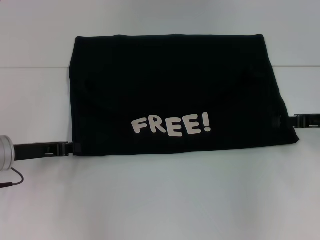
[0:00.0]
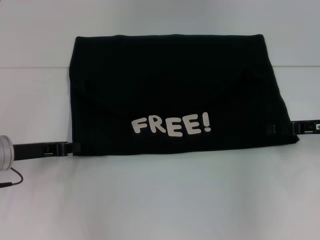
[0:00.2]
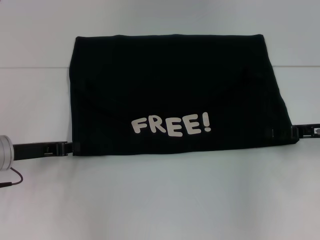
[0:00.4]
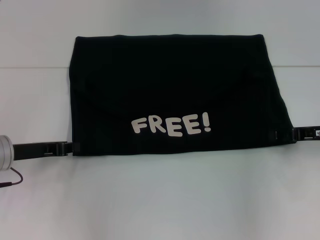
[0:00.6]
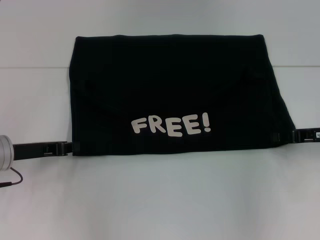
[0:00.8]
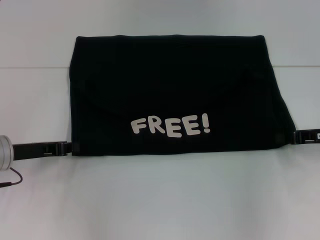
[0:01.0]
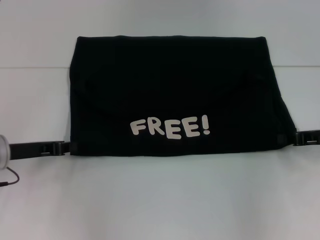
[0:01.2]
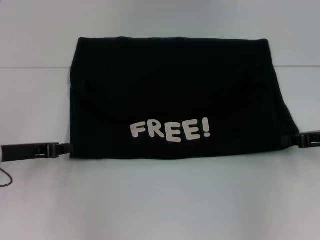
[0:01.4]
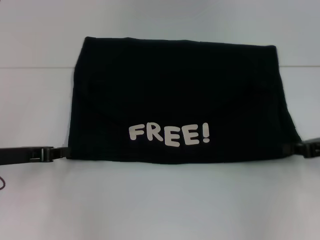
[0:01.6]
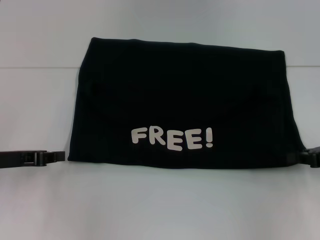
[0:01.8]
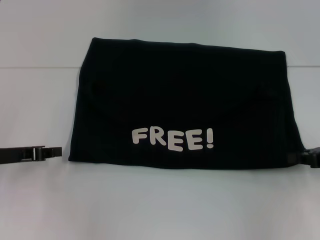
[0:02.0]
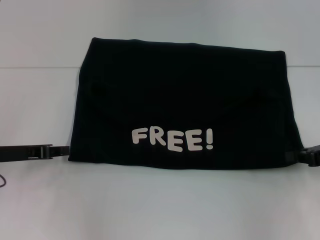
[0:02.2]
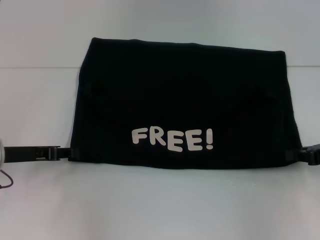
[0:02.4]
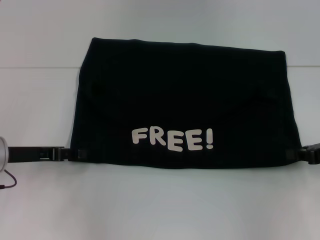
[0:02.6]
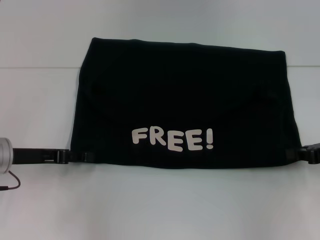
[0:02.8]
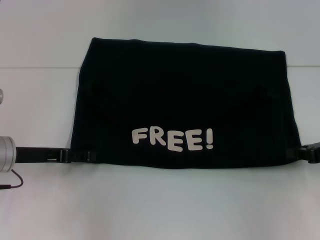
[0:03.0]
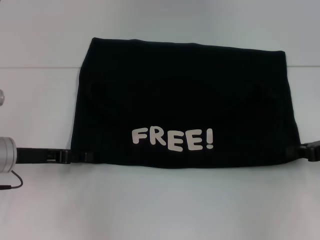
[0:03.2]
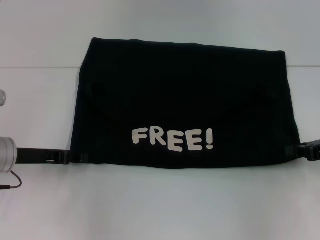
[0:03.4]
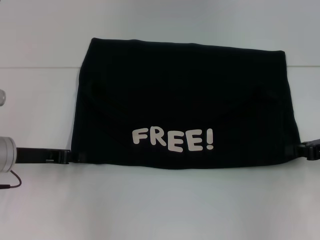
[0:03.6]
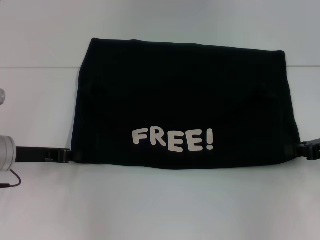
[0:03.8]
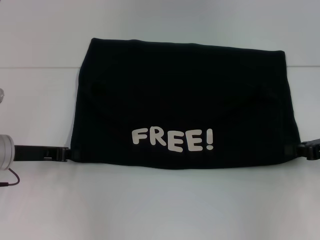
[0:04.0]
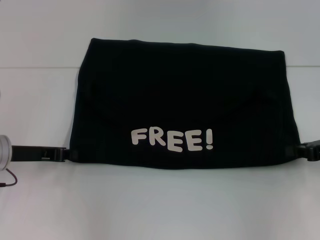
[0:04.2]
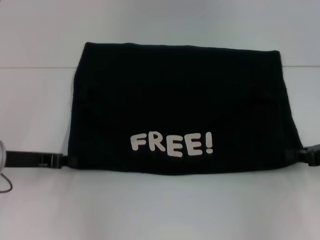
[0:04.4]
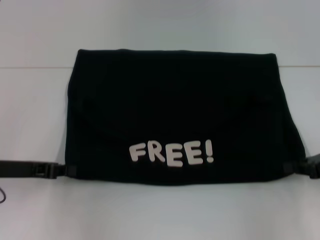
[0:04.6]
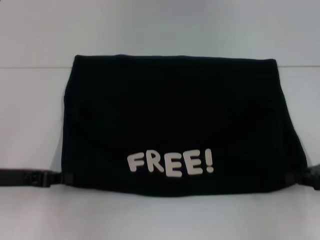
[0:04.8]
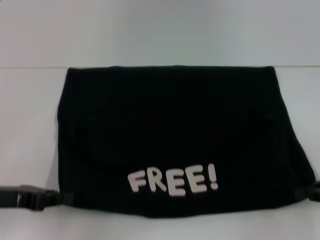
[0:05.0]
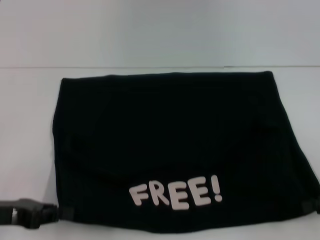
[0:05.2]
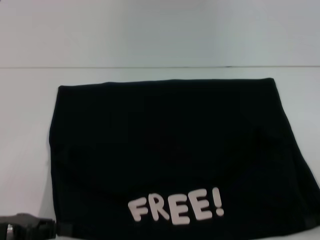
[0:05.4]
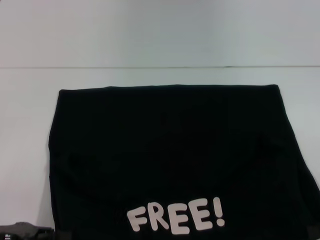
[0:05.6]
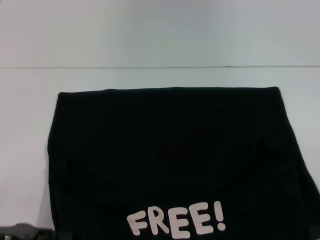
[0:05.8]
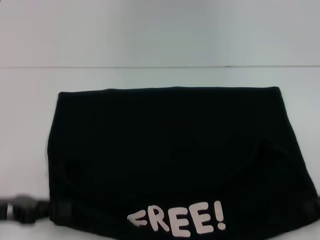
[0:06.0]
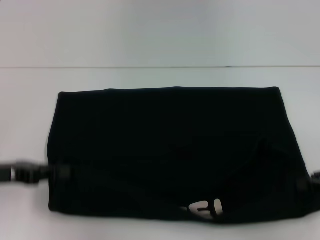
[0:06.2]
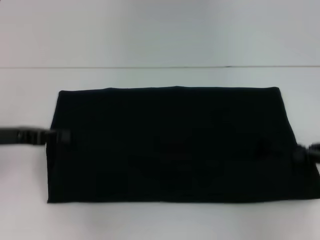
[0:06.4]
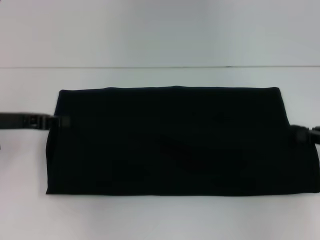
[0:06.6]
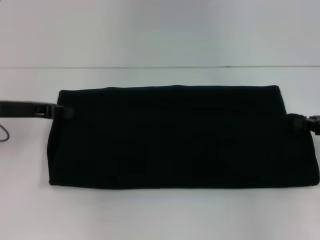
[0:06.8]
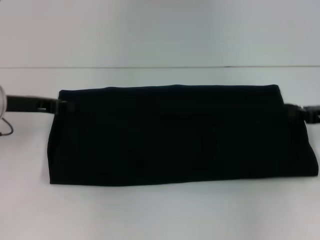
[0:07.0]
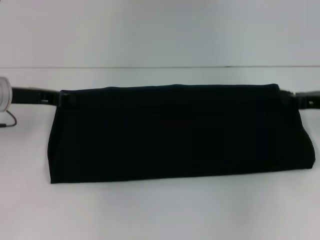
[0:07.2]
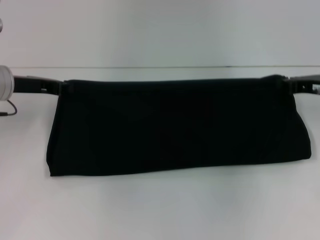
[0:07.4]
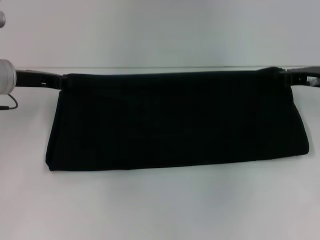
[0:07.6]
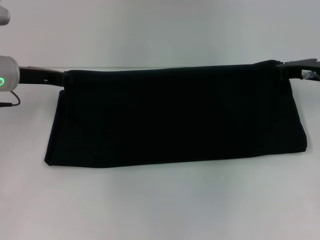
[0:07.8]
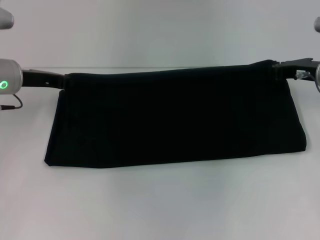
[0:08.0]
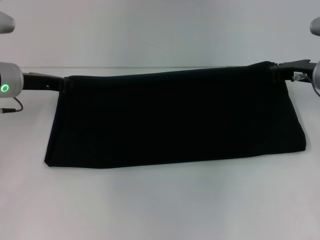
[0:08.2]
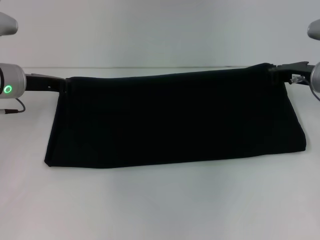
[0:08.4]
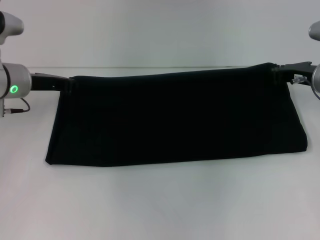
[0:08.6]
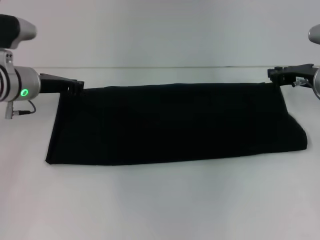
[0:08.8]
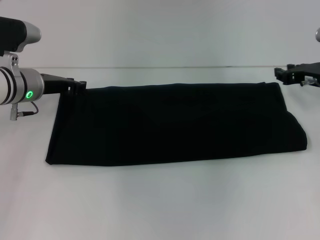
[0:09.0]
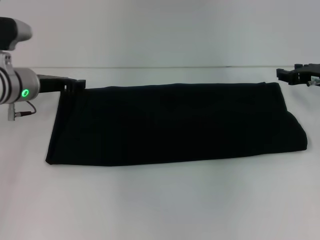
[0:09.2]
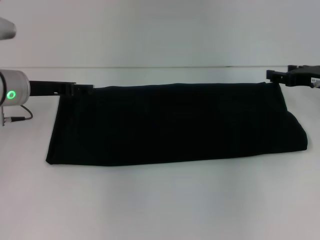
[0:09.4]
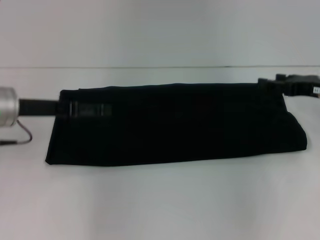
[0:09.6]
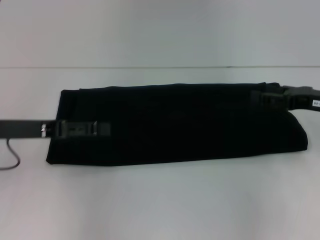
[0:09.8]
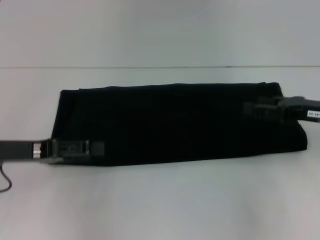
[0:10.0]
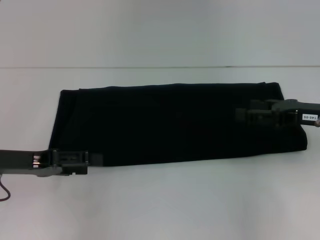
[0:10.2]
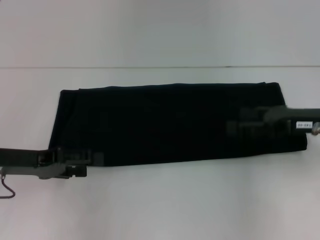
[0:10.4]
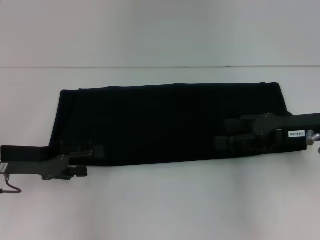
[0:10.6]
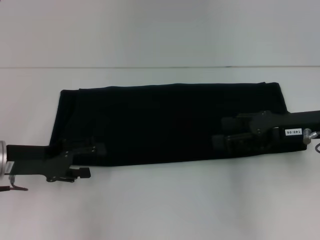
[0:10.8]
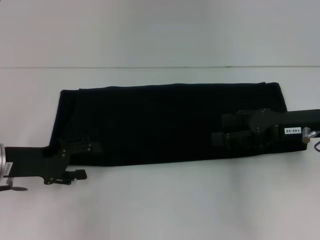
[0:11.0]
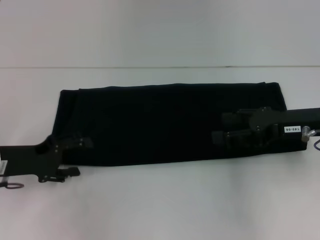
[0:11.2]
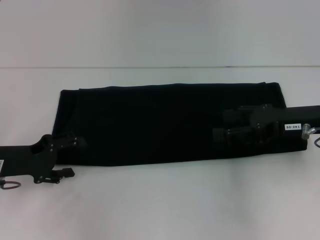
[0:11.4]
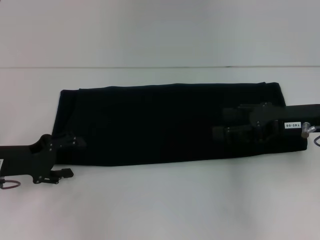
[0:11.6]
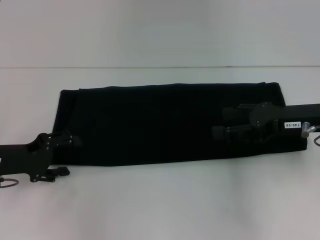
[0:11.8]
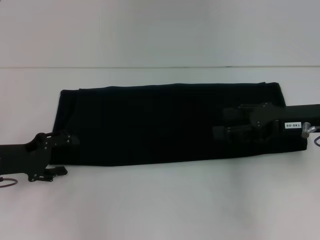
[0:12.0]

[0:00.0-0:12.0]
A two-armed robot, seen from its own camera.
Step, 0:00.0 to 0:05.6: Pull the clothes with your left hand.
Step, 0:00.0 to 0:05.6: Pull the clothes with your right hand.
Step, 0:05.8 to 0:09.4: Fold the clothes with your right hand.
0:00.0 to 0:01.6: The right gripper closes.
0:01.6 to 0:03.0: The left gripper opens its fingers.
0:03.0 to 0:04.4: The left gripper closes its fingers.
0:04.4 to 0:06.0: The two grippers go some 10 cm backward.
0:06.0 to 0:07.6: The left gripper goes approximately 20 cm forward. The right gripper is displaced forward and to the left by roughly 20 cm.
0:07.6 to 0:09.0: The left gripper shifts by approximately 5 cm.
0:09.0 to 0:10.4: The right gripper moves backward, approximately 10 cm, and opens up, while the left gripper heads backward, covering roughly 15 cm, and opens its fingers.

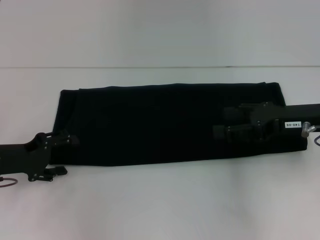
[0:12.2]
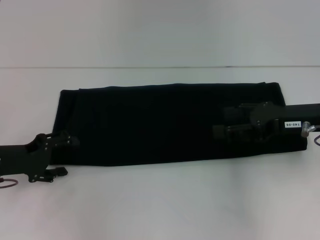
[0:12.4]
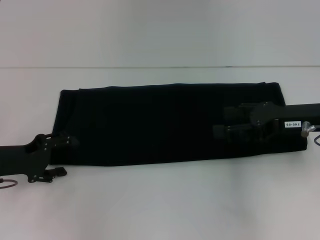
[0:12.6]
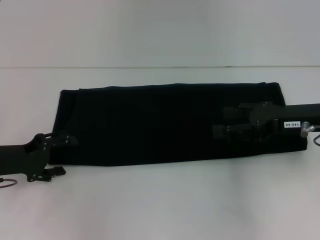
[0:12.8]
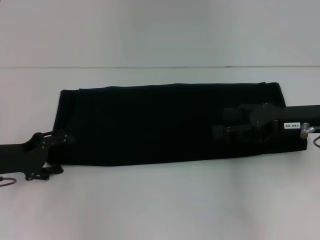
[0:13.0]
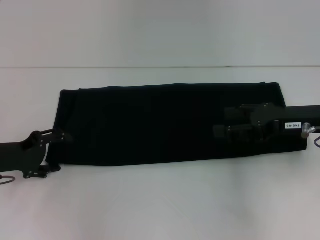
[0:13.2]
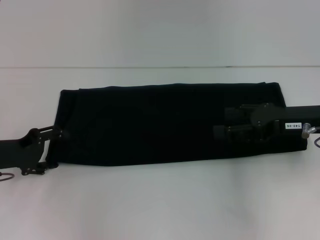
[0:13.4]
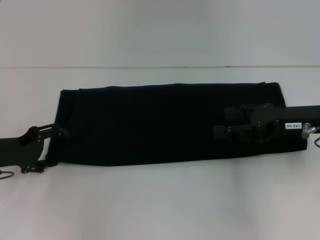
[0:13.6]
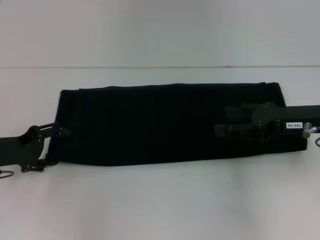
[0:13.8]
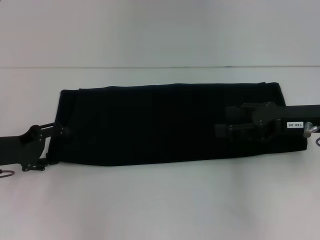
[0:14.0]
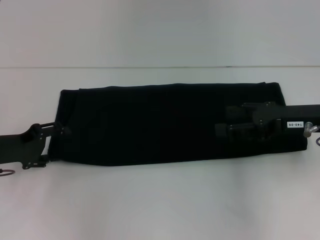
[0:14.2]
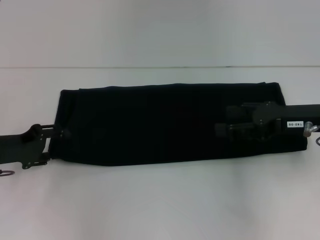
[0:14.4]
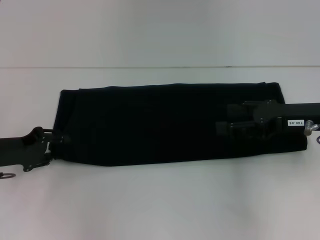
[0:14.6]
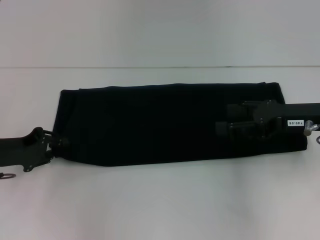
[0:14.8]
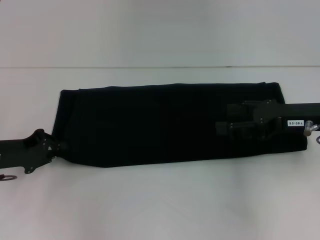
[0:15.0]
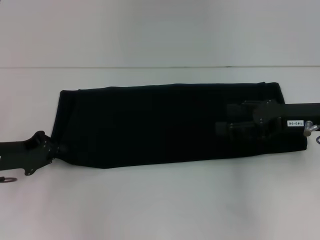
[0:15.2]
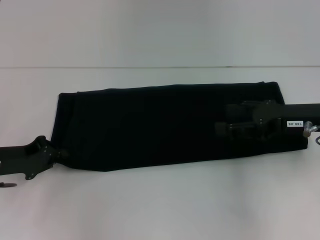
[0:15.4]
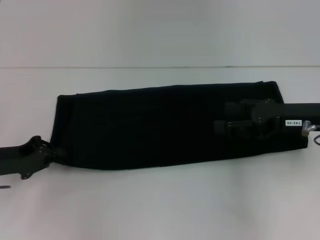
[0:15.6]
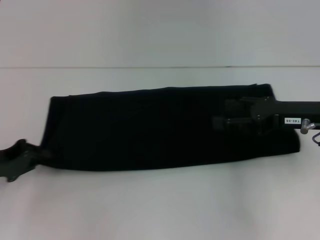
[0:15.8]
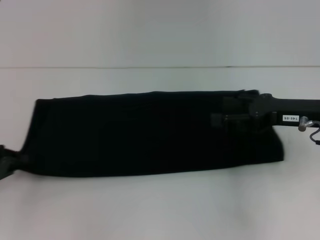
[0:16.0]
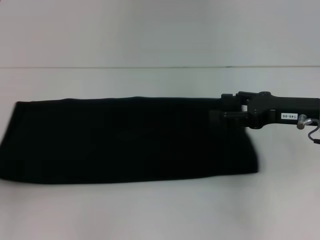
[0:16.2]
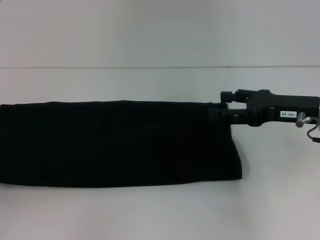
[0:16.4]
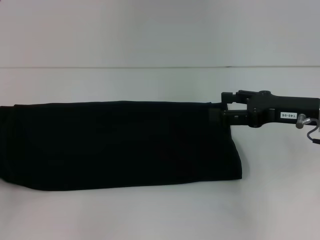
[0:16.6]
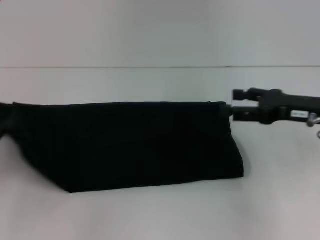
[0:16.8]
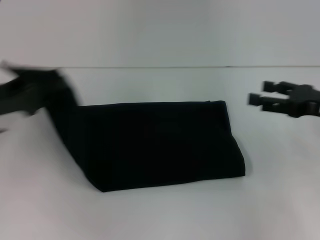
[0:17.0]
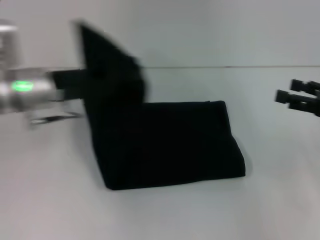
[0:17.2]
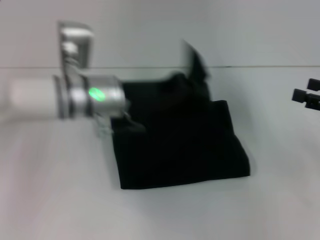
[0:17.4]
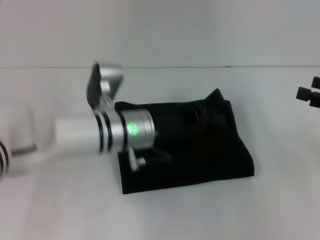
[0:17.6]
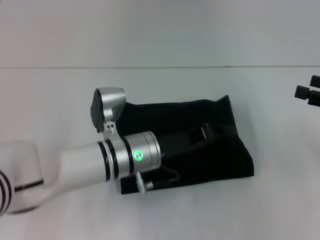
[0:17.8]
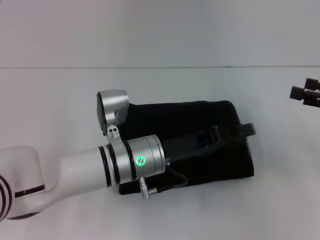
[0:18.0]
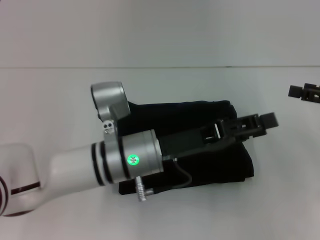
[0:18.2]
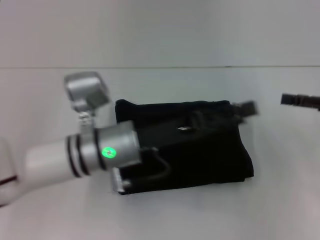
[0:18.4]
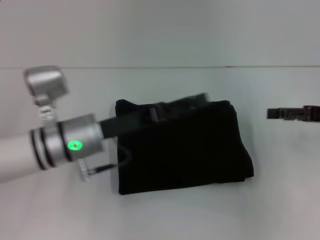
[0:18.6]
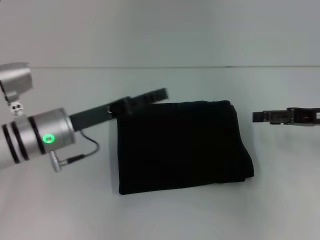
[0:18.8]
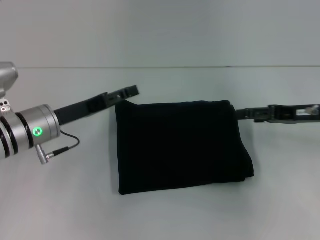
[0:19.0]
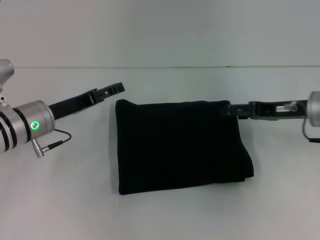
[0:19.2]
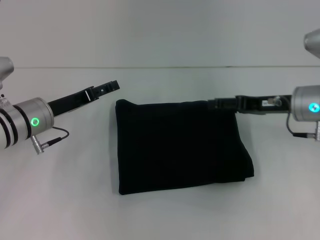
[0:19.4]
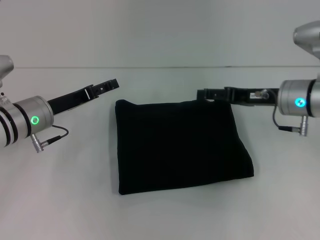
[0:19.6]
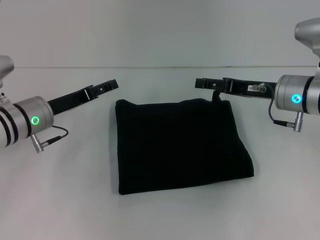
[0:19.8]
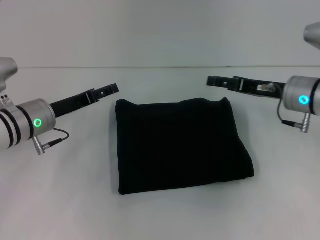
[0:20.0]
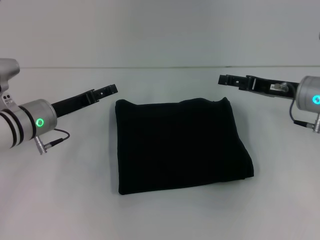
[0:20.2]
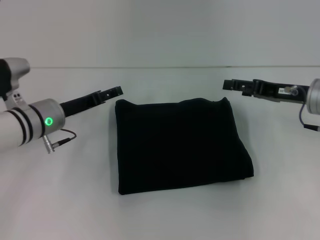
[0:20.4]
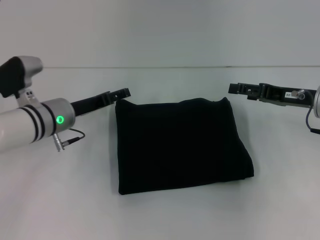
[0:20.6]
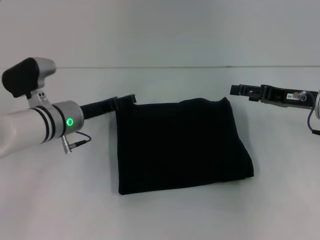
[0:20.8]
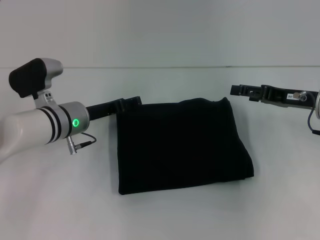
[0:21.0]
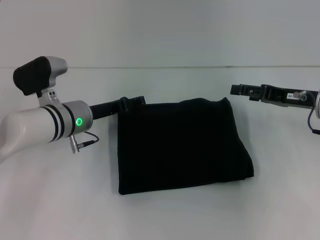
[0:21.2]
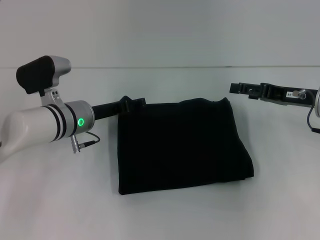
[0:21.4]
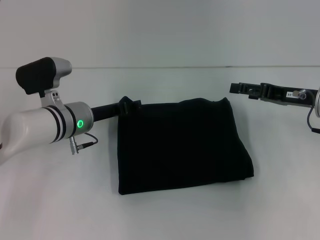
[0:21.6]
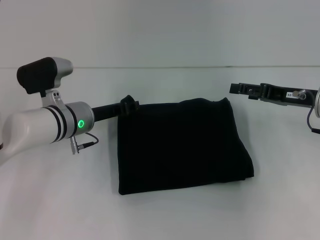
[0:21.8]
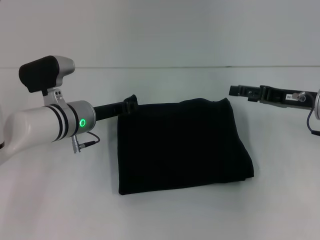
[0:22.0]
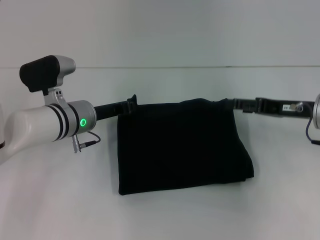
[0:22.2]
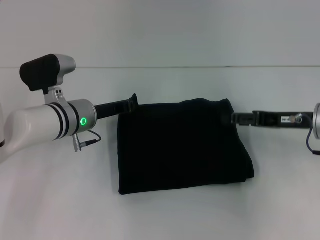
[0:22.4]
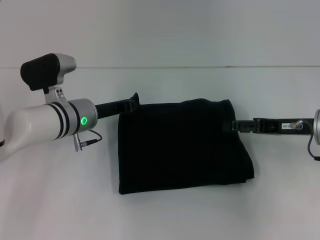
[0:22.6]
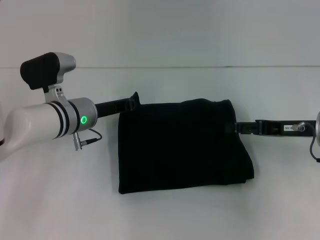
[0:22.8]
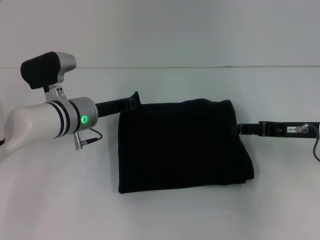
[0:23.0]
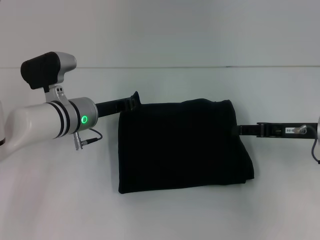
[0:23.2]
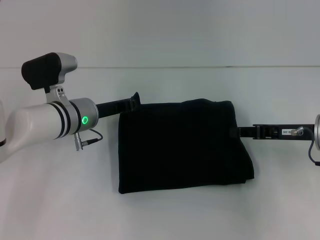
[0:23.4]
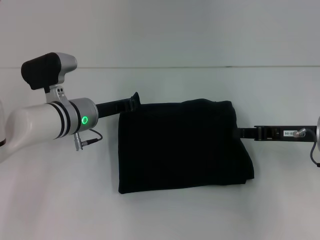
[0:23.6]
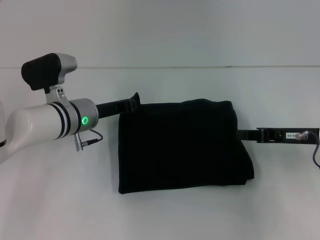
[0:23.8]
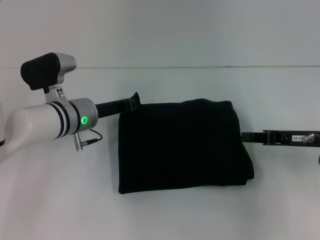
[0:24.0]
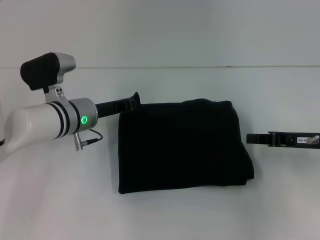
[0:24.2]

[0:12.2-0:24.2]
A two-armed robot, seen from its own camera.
Step, 0:12.2 to 0:18.0: Fold the clothes with your left hand.
0:12.2 to 0:13.8: The grippers make only small movements.
0:13.8 to 0:15.2: The left gripper closes.
0:15.2 to 0:16.6: The left gripper travels to the left and backward by about 15 cm.
0:16.6 to 0:18.2: The left gripper shifts roughly 35 cm to the right. Meanwhile the right gripper goes some 10 cm to the right.
0:18.2 to 0:19.8: The two grippers go roughly 15 cm to the left and forward. The left gripper opens.
0:19.8 to 0:21.2: Both grippers travel together to the right, some 5 cm.
0:21.2 to 0:22.6: The left gripper closes its fingers.
0:22.6 to 0:24.2: The right gripper closes.
